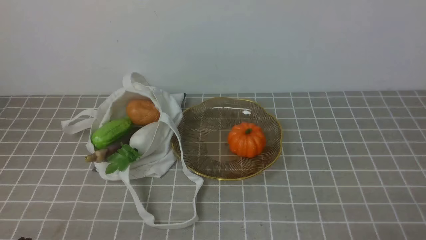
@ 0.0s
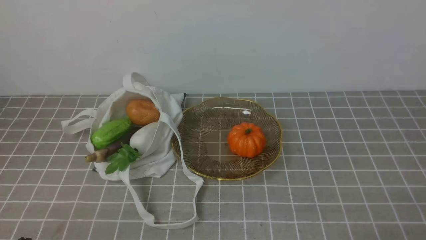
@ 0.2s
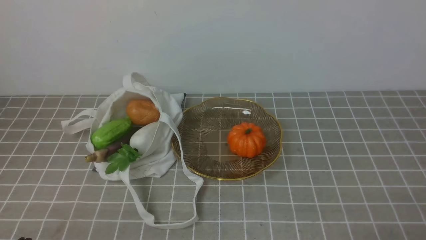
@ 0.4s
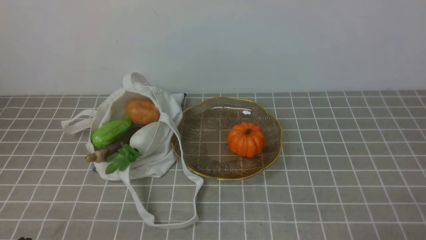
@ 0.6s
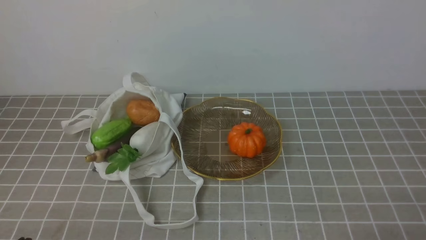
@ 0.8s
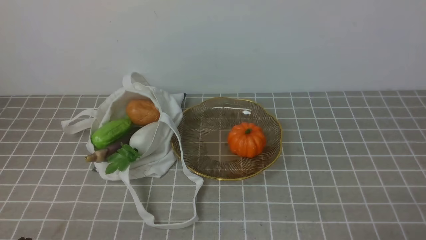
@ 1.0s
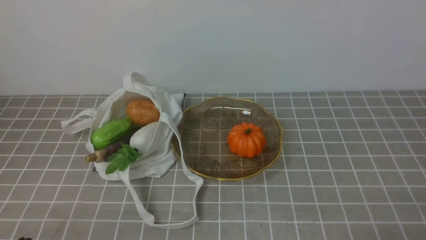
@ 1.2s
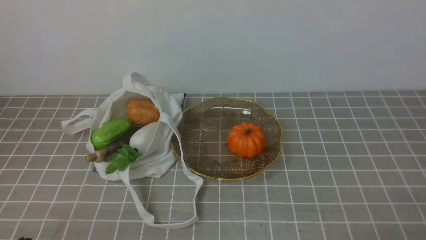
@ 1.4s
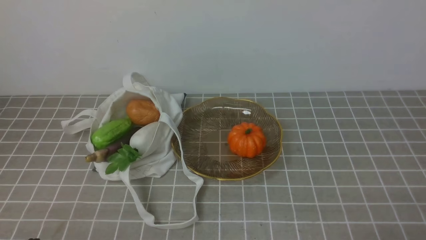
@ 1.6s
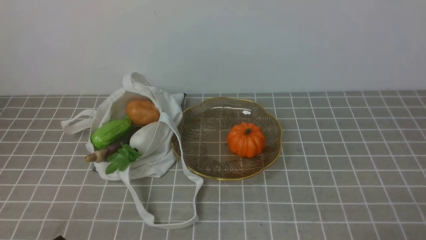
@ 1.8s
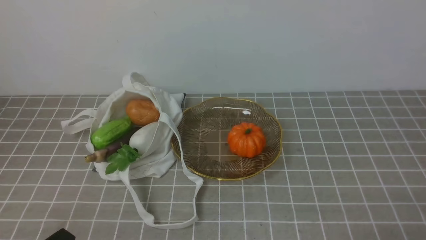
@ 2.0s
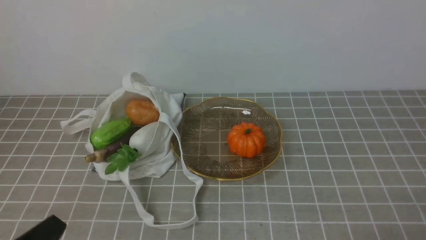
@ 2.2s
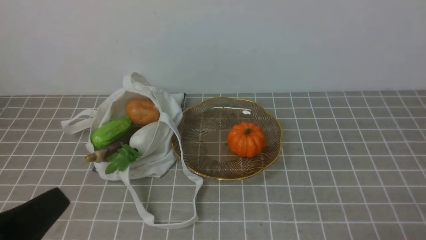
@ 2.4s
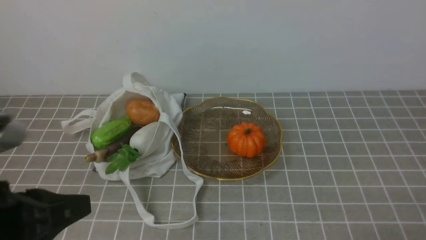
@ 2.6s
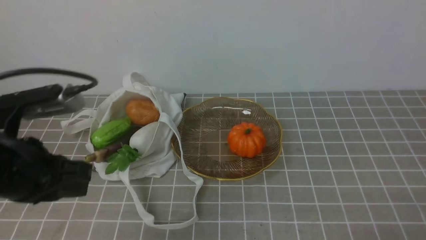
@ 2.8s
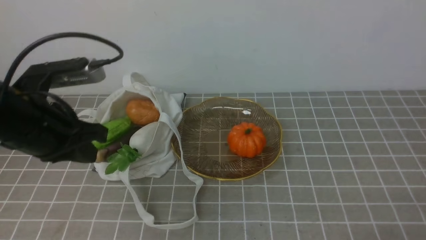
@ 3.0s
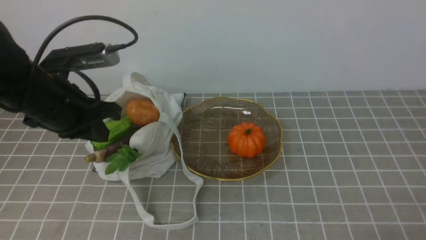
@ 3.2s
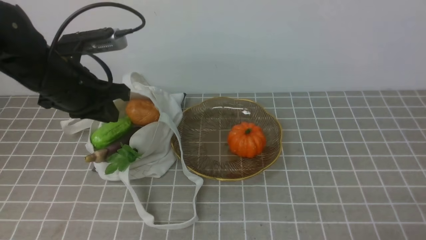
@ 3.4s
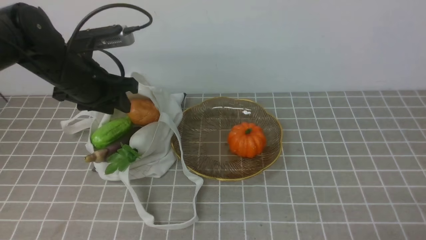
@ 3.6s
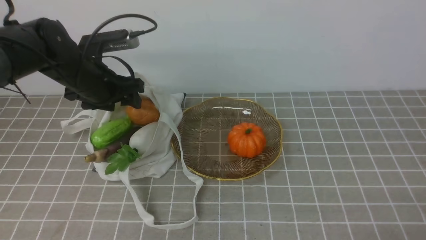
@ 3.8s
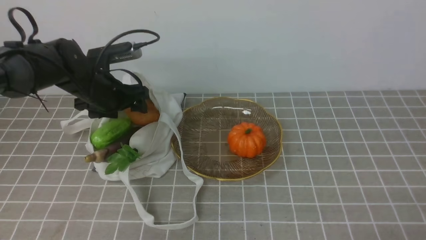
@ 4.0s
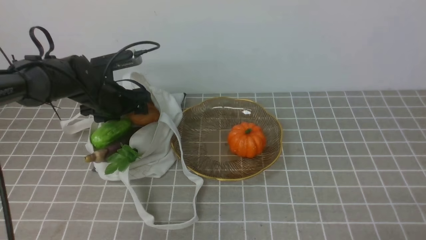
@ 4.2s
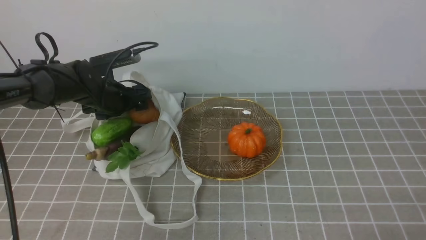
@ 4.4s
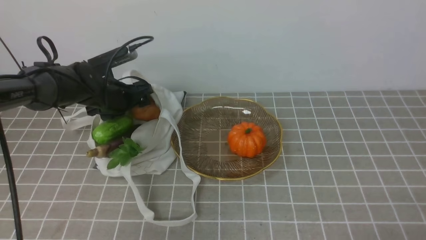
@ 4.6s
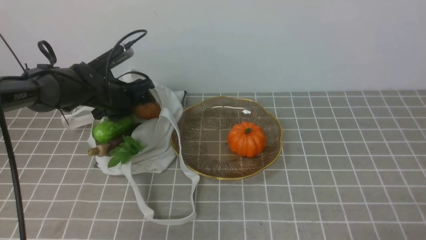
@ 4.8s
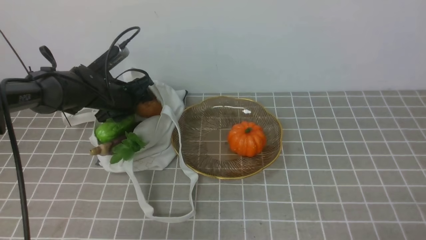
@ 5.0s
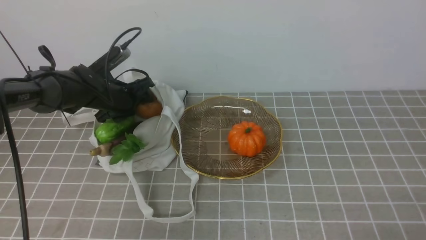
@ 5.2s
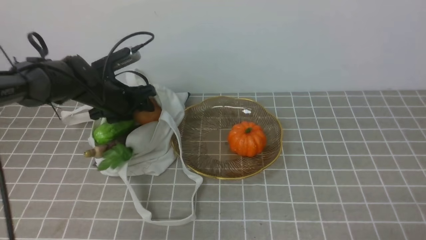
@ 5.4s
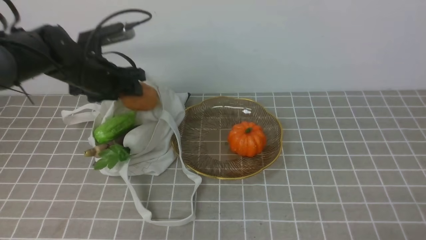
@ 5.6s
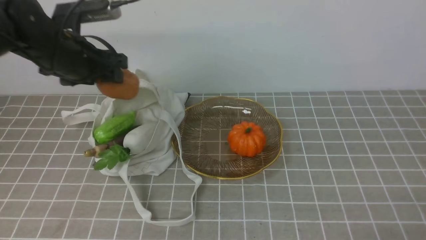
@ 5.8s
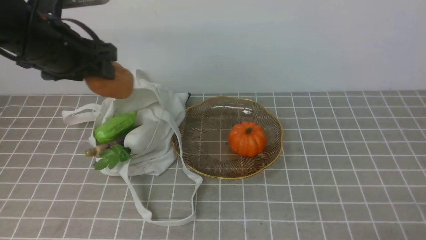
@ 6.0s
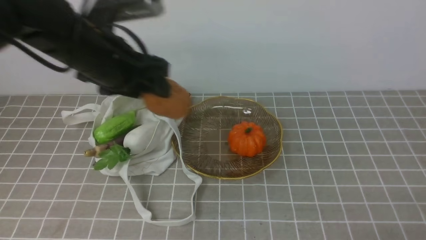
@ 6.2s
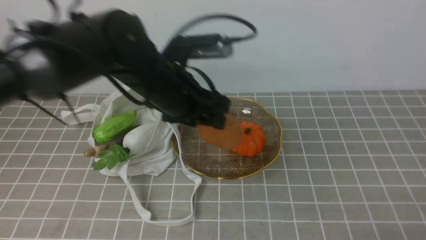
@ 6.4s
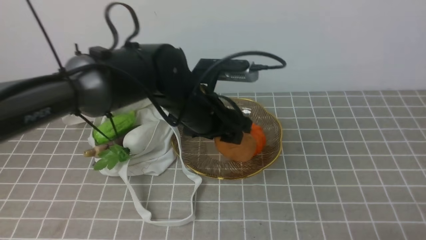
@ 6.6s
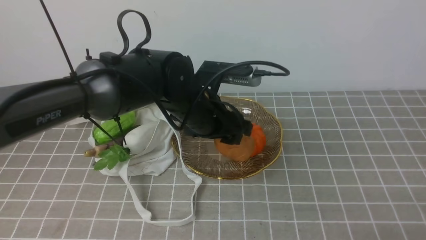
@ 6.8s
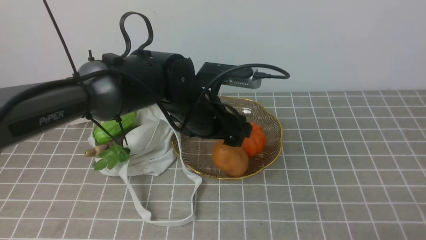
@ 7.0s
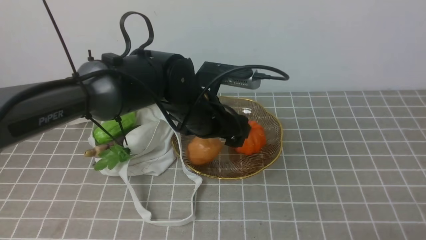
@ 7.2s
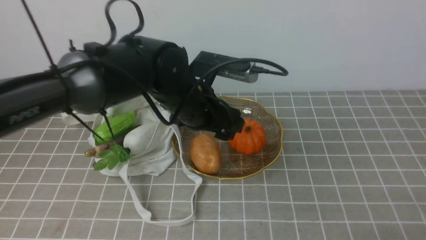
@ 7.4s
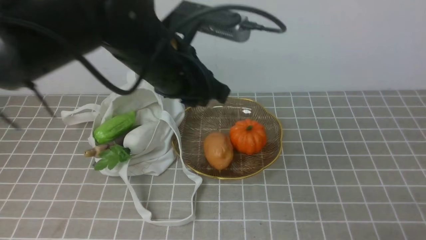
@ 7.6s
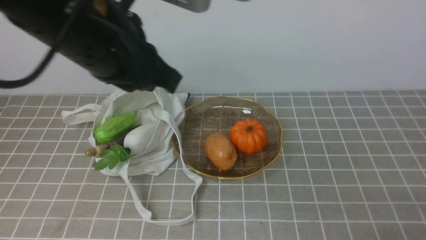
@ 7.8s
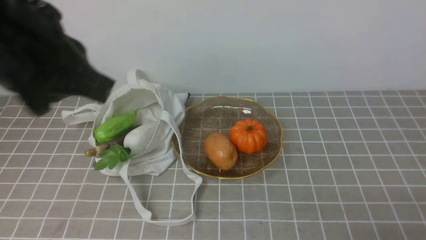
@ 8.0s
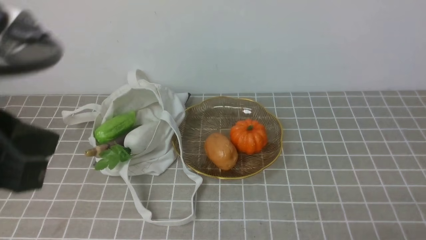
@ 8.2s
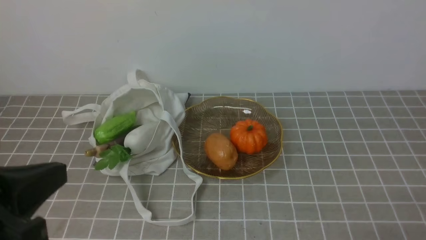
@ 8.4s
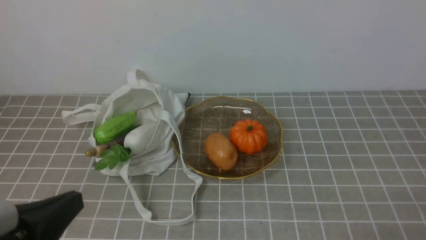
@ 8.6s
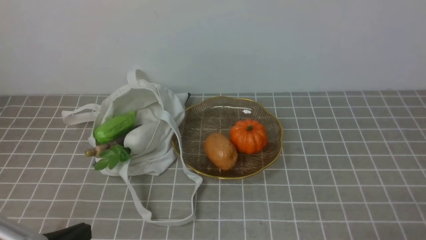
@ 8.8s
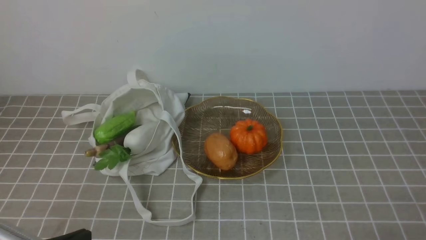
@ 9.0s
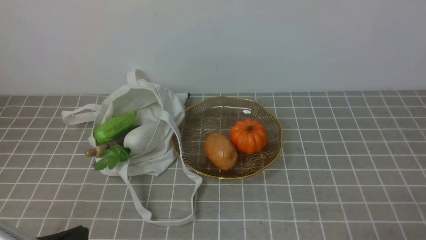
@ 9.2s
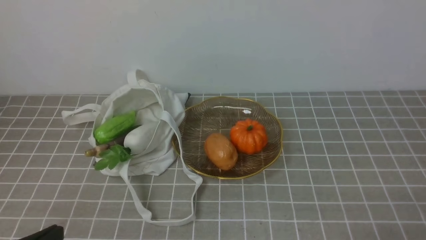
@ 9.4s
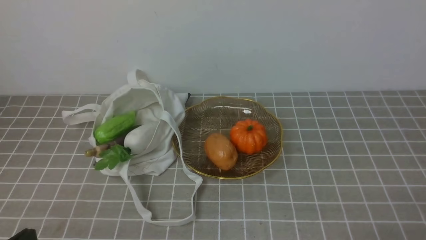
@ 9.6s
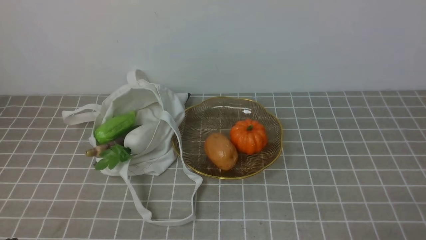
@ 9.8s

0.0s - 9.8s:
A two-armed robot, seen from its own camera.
Task of the whole recording: take vegetables from bag on grey coffee tablecloth place on plate.
Step, 0.0s - 5.2s: Grasp the potato with left gripper.
Step, 5.4s - 7.6s: Place the potato on the plate with left gripper.
1.4s - 2.8s: The left gripper heads forward and upward, covering about 20 cm.
2.8s - 4.2s: The left gripper heads forward and downward, covering some 30 cm, and opens up.
4.2s - 5.6s: The left gripper travels upward by approximately 5 cm.
5.6s - 7.0s: The left gripper heads to the right, covering approximately 20 cm.
7.0s - 8.4s: The left gripper heads backward and to the left, covering roughly 30 cm, and closes its fingers.
8.4s - 9.8s: The left gripper goes about 15 cm downward.

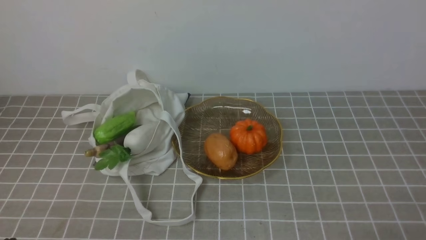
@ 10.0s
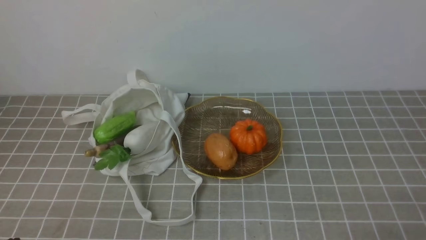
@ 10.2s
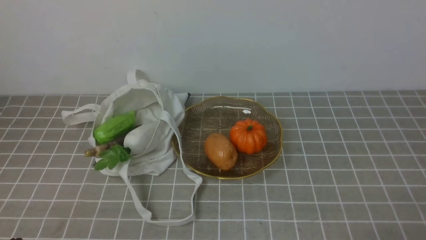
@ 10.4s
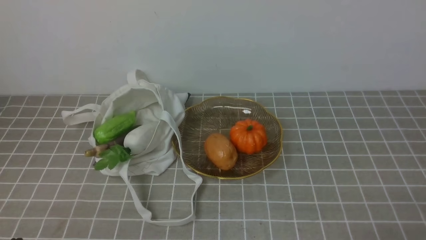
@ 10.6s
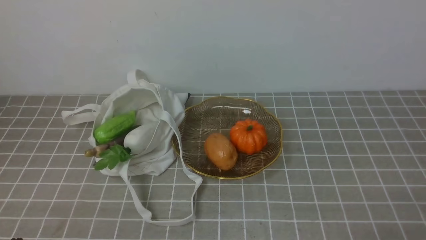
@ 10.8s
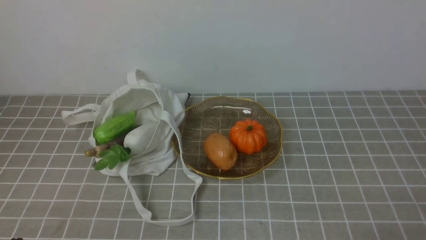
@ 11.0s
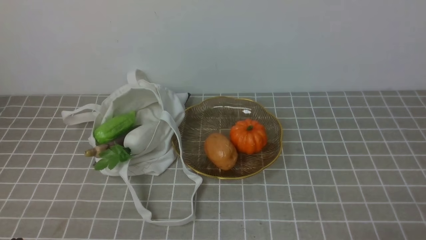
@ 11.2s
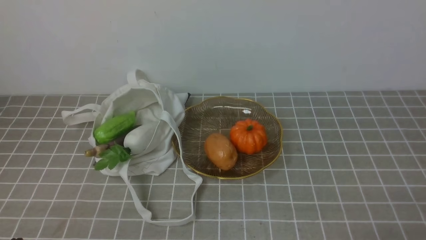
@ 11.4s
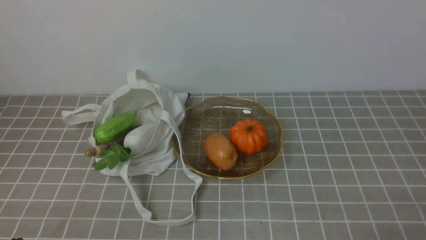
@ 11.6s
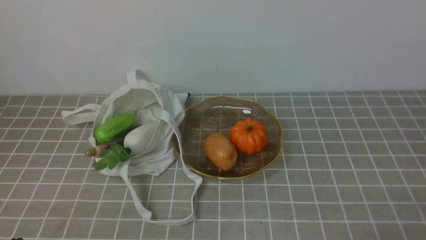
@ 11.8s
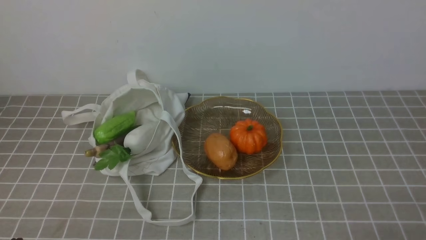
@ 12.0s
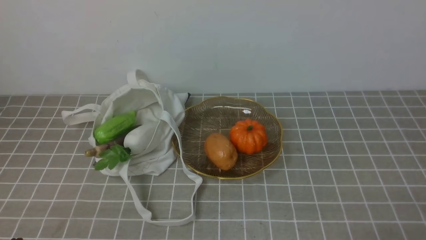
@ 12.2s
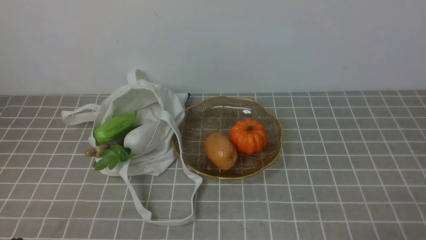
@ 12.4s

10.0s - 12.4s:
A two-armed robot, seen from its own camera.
Task of the whole recording: take vegetables from bag on grey coffee tablecloth place on plate.
10.0s - 12.4s: Both grippers stay put.

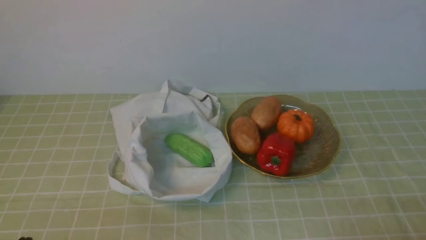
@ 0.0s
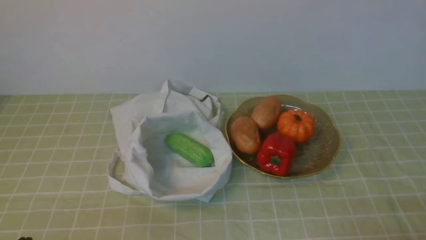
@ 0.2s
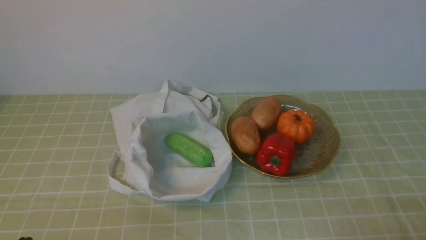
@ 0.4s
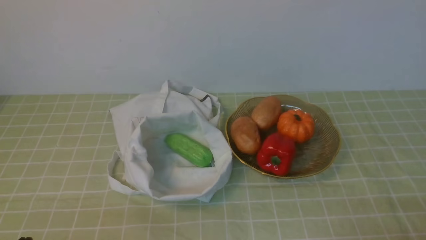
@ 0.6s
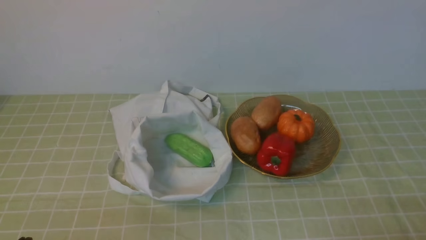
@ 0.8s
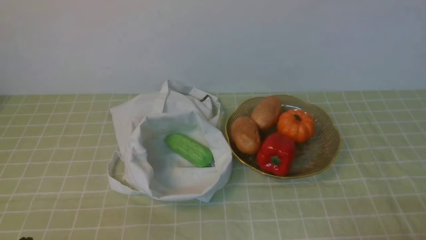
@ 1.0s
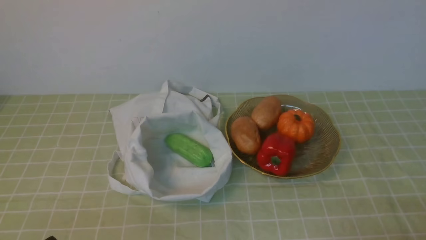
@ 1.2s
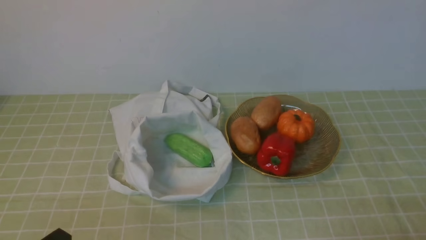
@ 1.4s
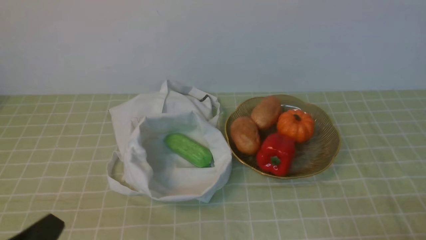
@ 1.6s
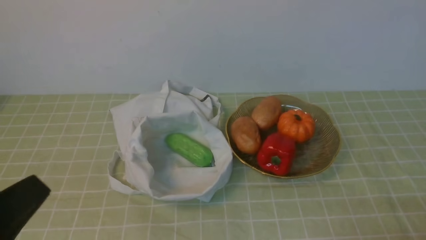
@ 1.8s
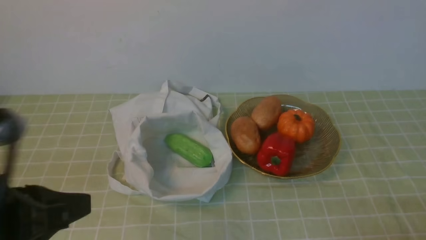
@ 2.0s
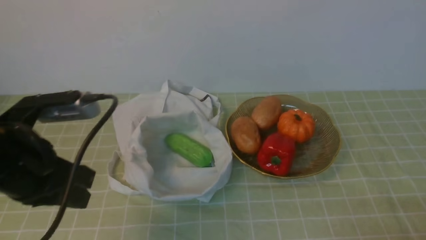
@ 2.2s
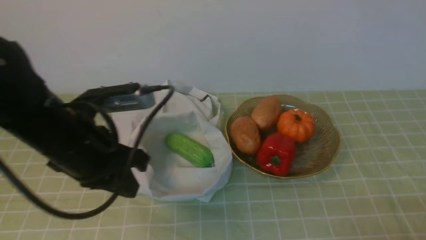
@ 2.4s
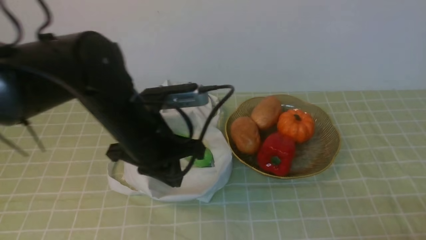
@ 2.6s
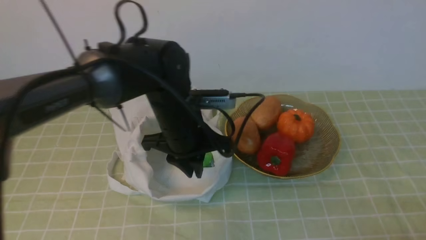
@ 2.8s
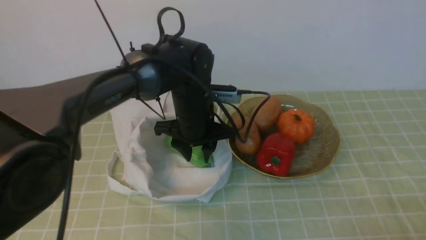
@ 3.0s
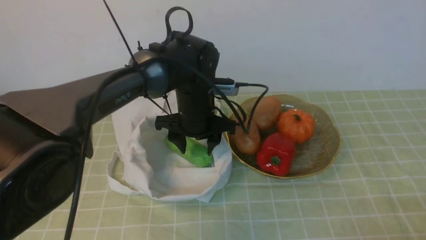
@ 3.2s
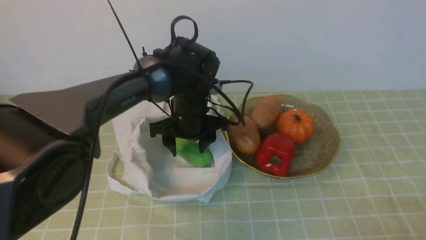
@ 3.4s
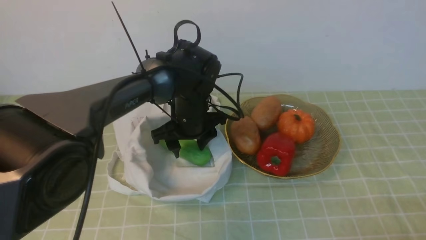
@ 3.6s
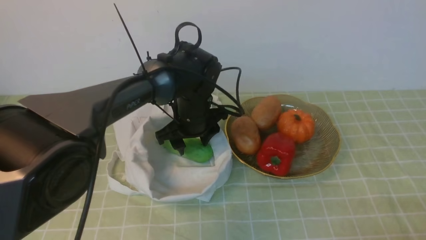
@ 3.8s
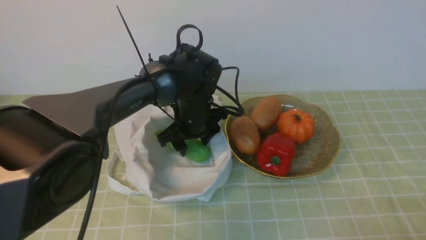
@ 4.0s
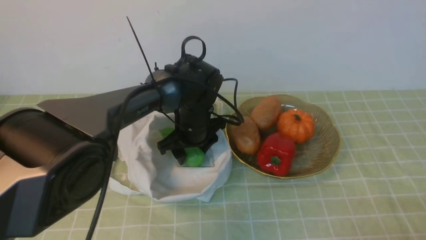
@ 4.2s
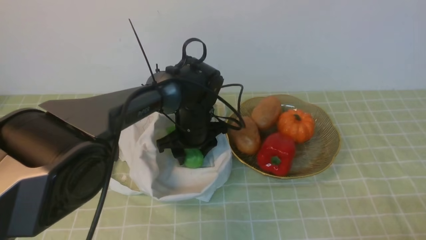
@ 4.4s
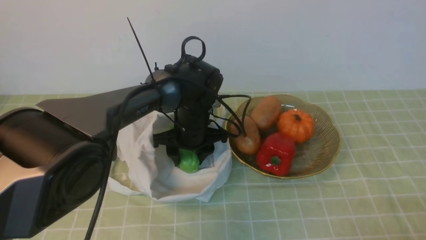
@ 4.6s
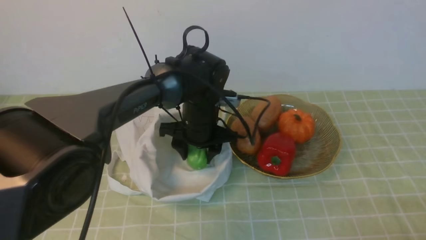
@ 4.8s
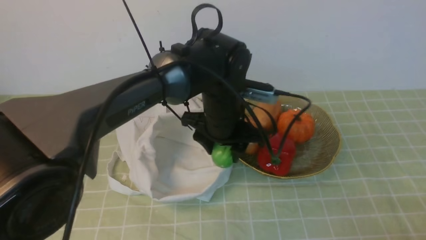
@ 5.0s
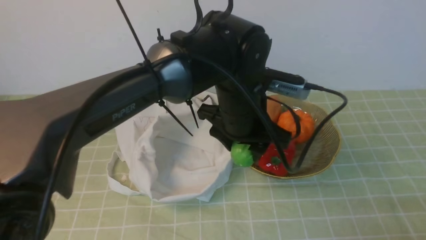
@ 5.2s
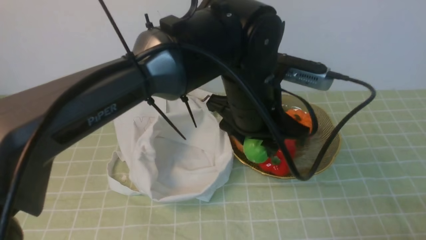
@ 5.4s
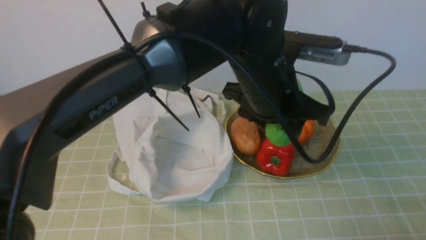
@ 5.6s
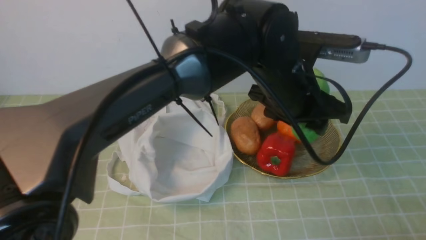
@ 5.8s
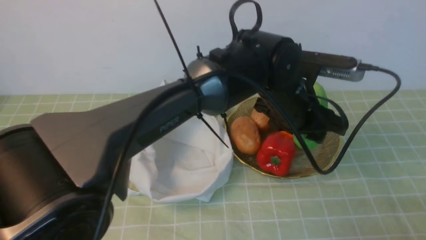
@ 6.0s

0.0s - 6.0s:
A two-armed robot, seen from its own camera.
Task of the whole recording: take vegetables from bag on green coffee tablecloth place on plate.
Step, 0.0s - 4.2s: Grasp the bitter melon with left gripper.
0.0s - 1.6s: The left gripper travels upward by about 5 cm.
1.6s - 3.0s: The left gripper shifts approximately 40 cm forward and to the right, and opens its fingers.
3.0s - 4.4s: The left gripper heads downward, covering approximately 5 cm.
4.4s - 6.0s: The left gripper heads to the right, upward and backward, covering about 20 cm.
